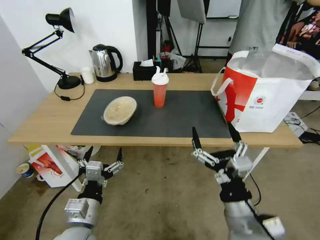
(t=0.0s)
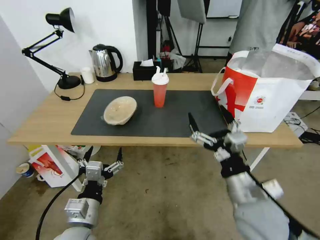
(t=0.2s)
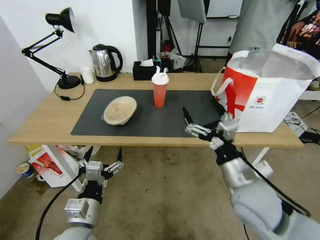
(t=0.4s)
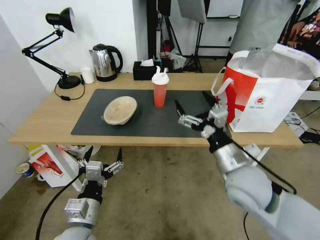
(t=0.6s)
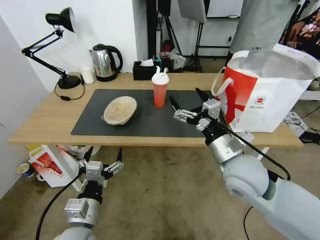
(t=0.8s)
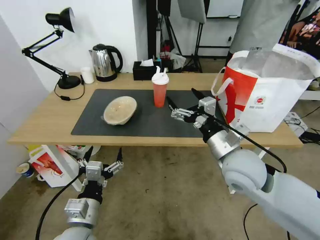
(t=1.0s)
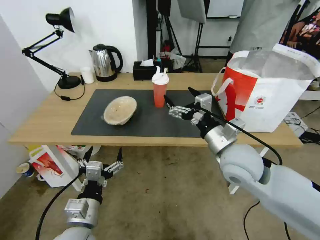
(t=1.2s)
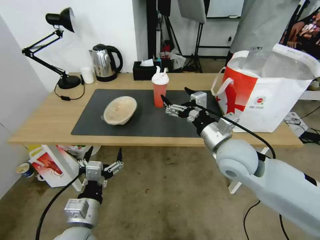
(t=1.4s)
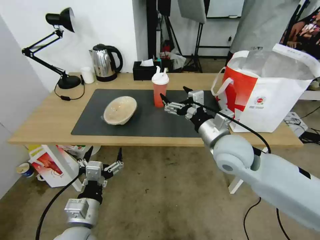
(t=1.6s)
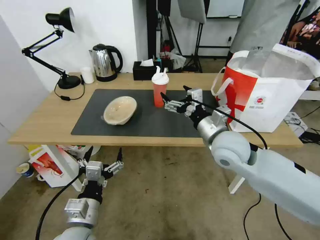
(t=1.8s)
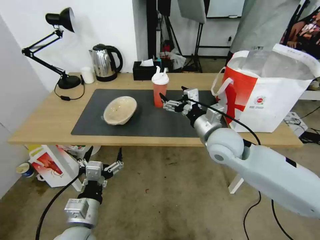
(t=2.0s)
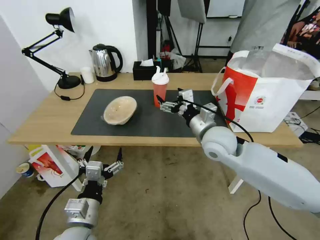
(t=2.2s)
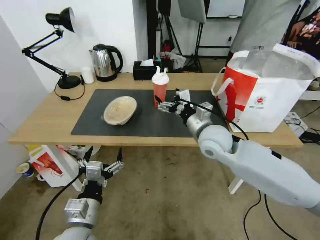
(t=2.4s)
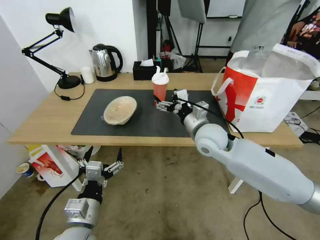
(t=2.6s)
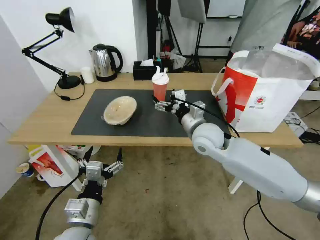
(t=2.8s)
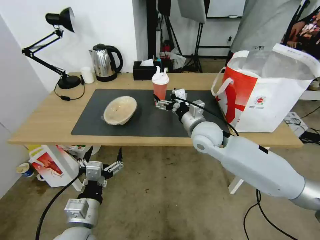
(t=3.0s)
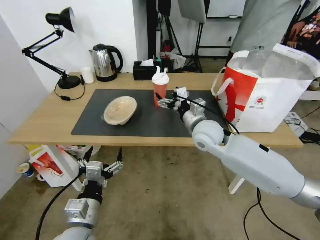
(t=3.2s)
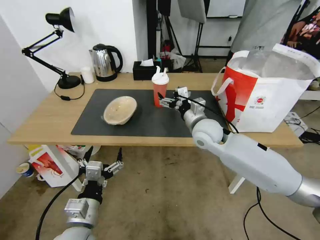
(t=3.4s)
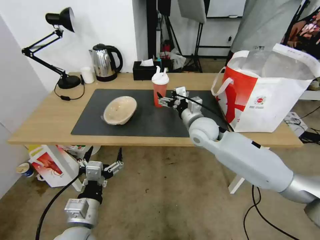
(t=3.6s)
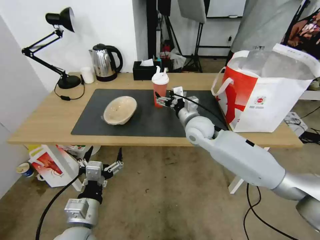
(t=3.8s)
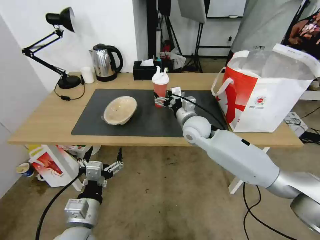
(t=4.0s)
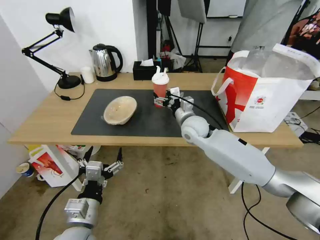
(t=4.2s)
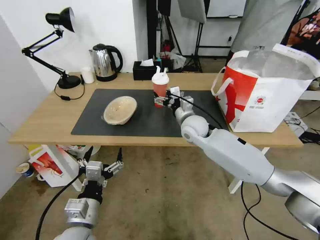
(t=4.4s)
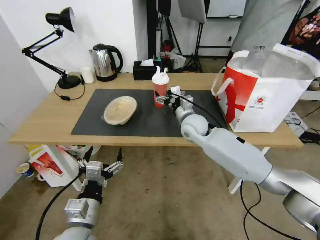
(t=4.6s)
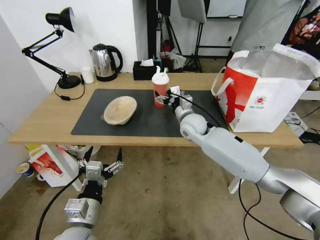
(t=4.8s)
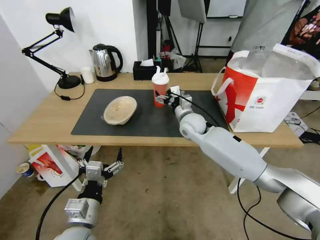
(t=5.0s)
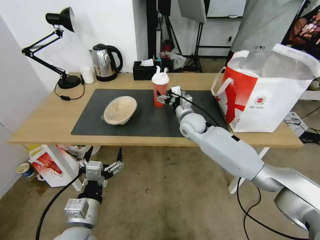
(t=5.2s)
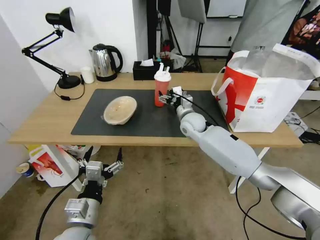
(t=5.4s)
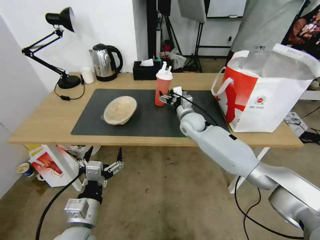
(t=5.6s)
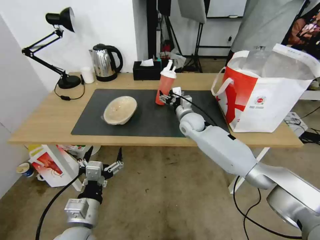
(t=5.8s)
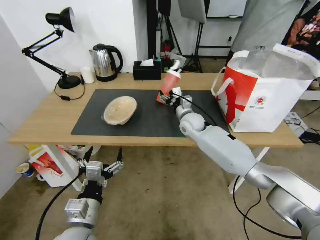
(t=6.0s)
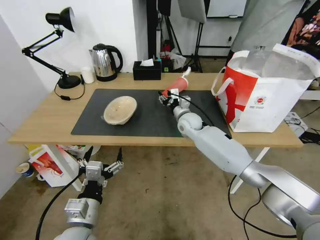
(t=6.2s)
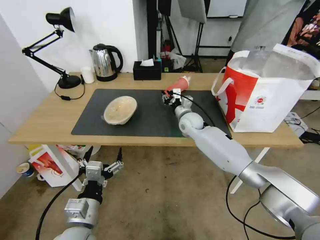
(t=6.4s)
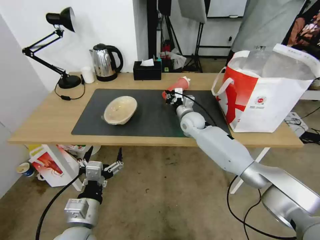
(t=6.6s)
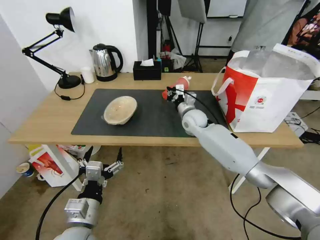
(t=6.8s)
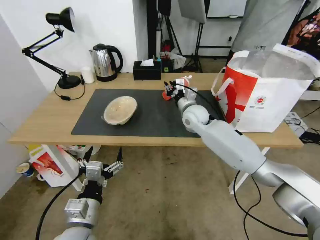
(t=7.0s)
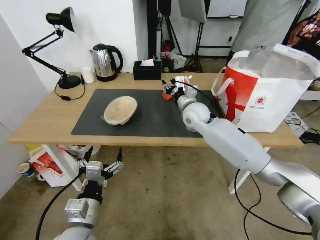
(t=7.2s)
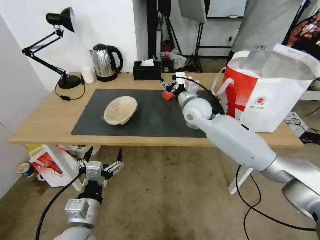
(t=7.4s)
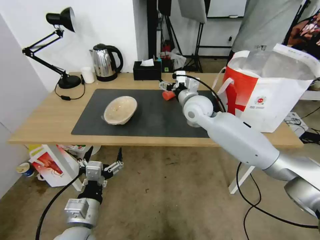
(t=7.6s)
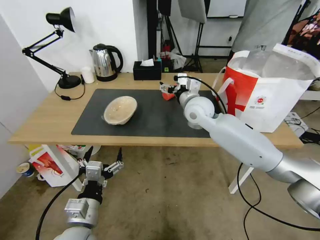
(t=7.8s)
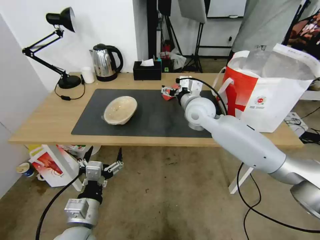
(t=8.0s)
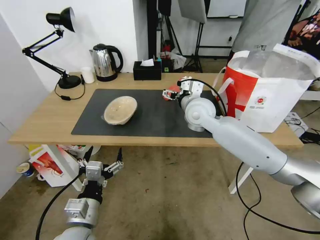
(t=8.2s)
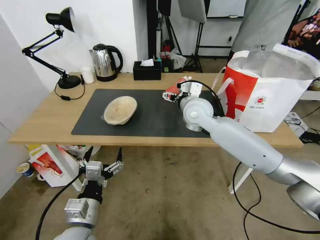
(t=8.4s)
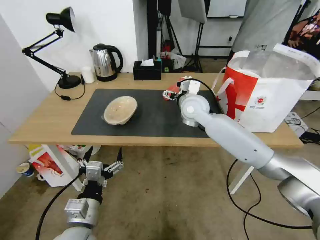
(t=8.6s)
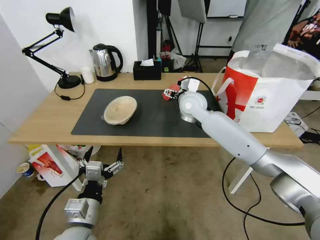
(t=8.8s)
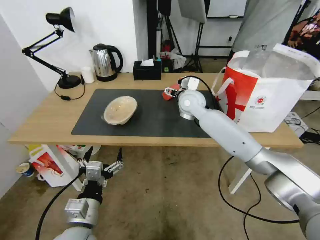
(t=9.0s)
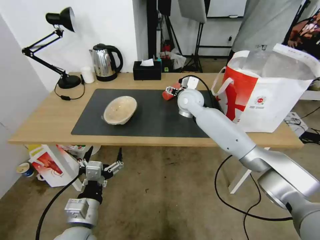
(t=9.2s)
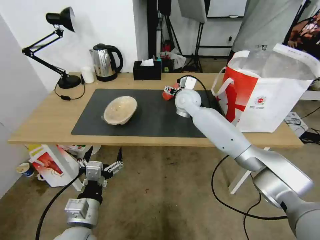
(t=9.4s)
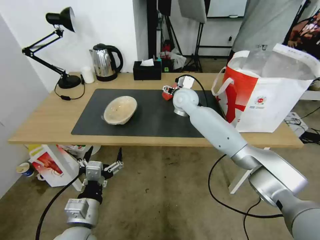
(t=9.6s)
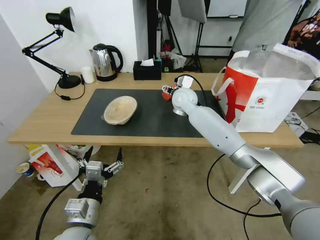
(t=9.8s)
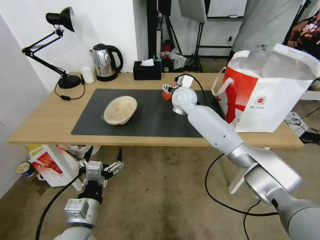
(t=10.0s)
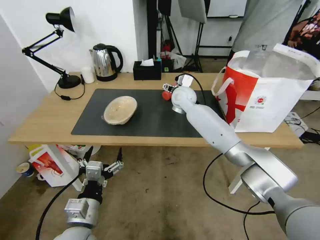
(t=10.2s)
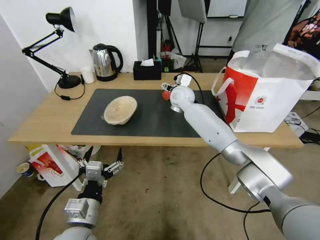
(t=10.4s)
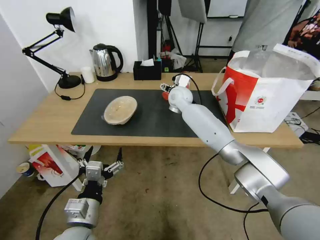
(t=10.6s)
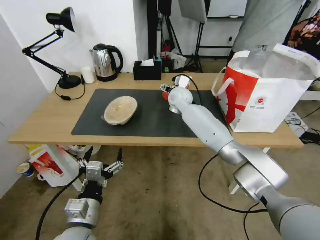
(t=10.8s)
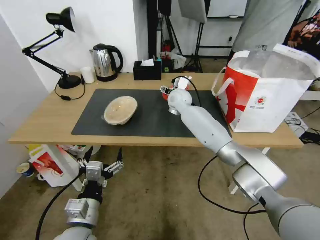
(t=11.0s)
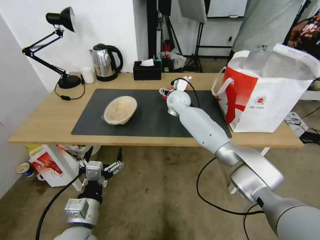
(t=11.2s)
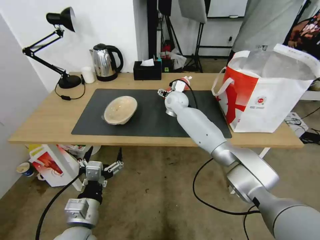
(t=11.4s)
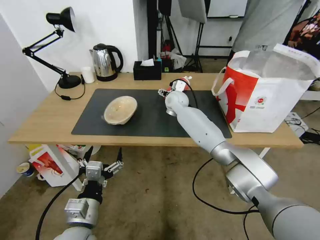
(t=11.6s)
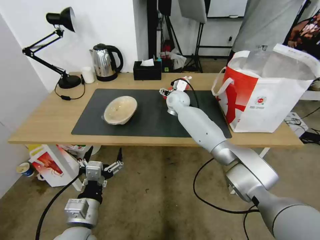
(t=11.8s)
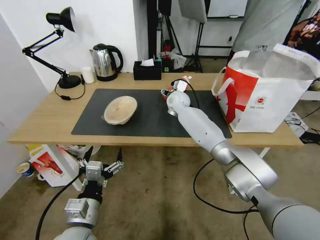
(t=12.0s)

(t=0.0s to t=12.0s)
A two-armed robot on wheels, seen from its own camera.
Task of the whole recording: Pick up the trash from the table and place it into the takeout bag.
t=0.0s - t=1.6s: The right gripper goes approximately 20 cm forward and upward.
t=1.6s - t=3.0s: The right gripper travels forward by about 10 cm.
t=3.0s - t=4.4s: The right gripper goes some 5 cm forward.
t=4.4s - t=6.0s: The right gripper is displaced forward by roughly 5 cm.
t=6.0s - t=7.6s: The right gripper shifts about 10 cm upward, and closes, then opens again.
t=9.0s - t=10.4s: The right gripper heads forward, covering about 5 cm.
t=10.4s - t=12.0s: There are only small adjustments of the grippers.

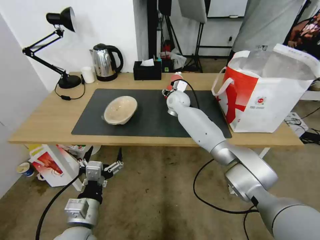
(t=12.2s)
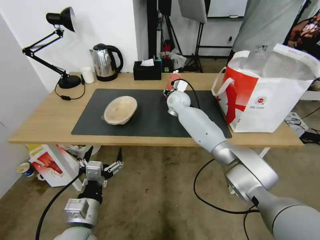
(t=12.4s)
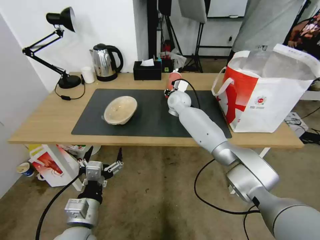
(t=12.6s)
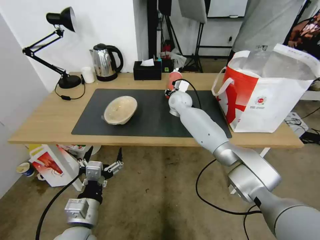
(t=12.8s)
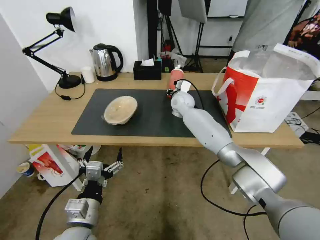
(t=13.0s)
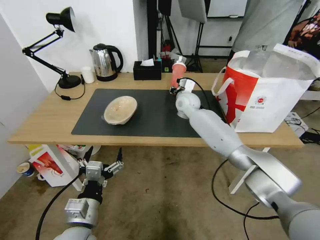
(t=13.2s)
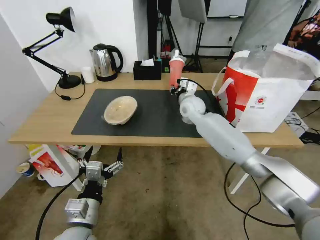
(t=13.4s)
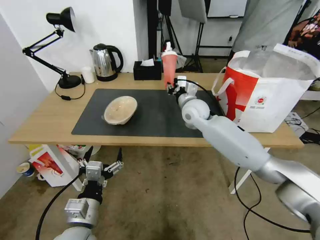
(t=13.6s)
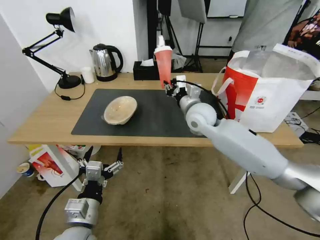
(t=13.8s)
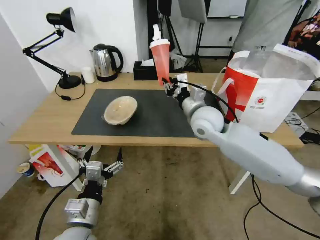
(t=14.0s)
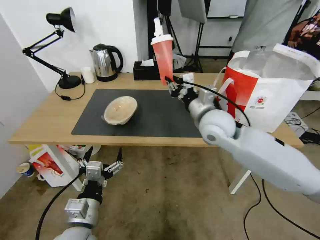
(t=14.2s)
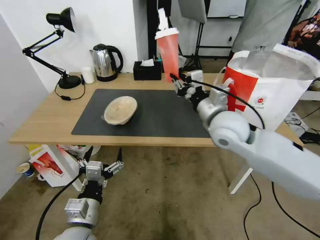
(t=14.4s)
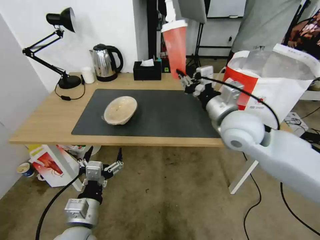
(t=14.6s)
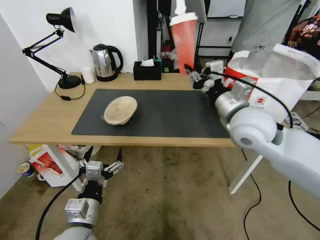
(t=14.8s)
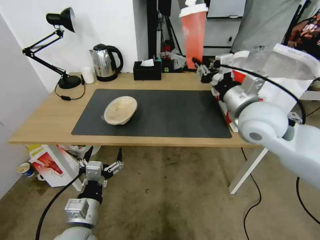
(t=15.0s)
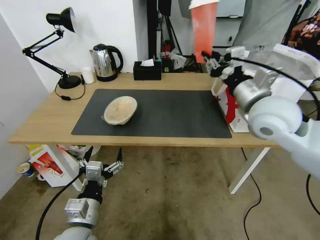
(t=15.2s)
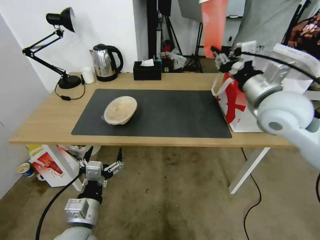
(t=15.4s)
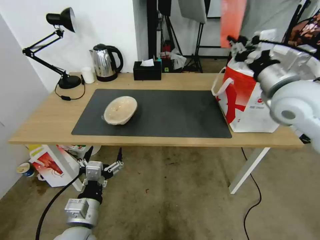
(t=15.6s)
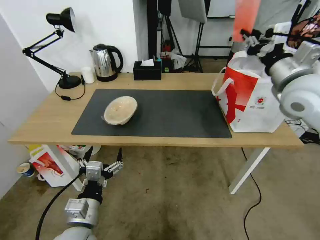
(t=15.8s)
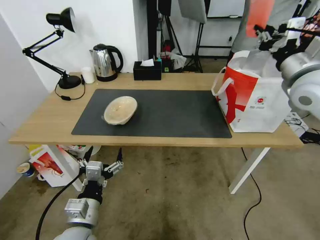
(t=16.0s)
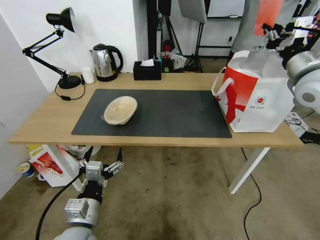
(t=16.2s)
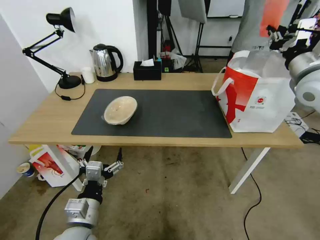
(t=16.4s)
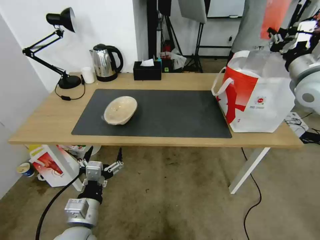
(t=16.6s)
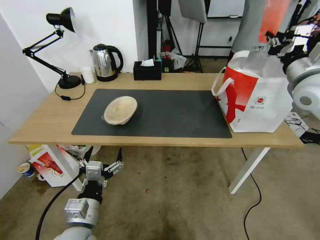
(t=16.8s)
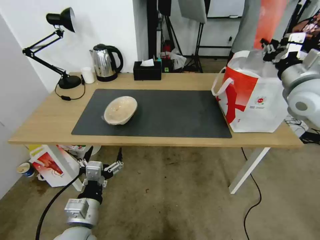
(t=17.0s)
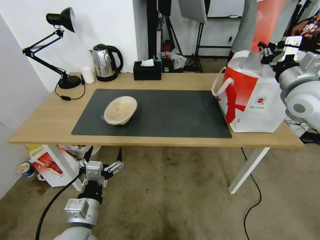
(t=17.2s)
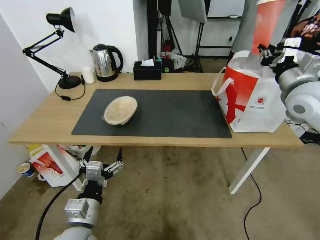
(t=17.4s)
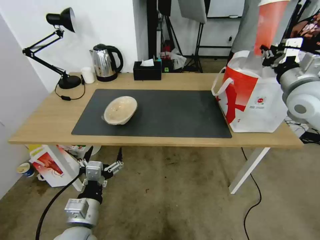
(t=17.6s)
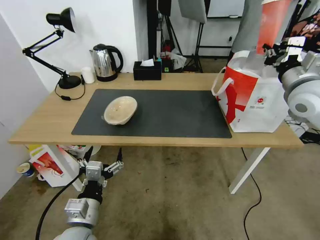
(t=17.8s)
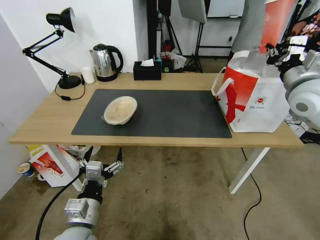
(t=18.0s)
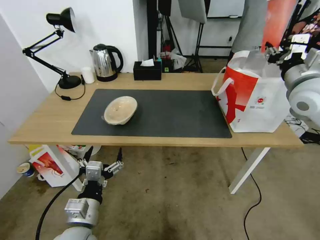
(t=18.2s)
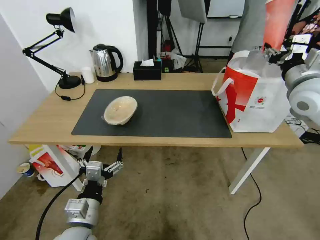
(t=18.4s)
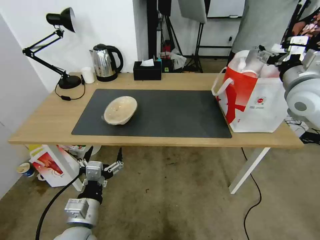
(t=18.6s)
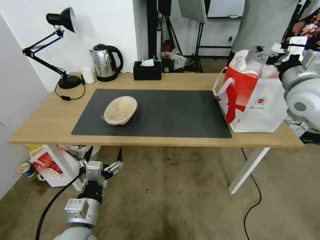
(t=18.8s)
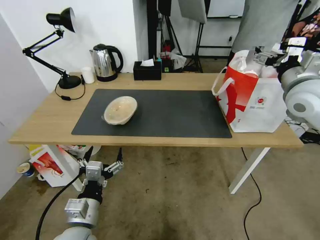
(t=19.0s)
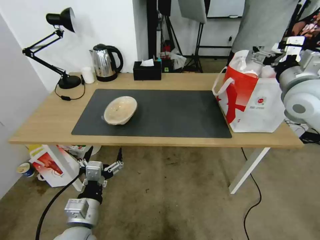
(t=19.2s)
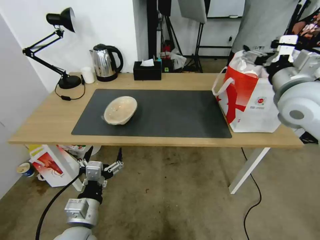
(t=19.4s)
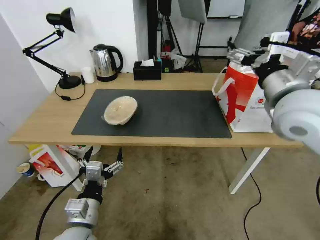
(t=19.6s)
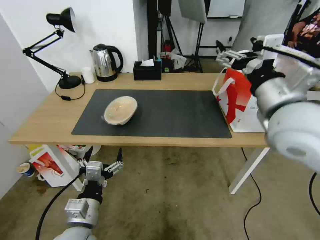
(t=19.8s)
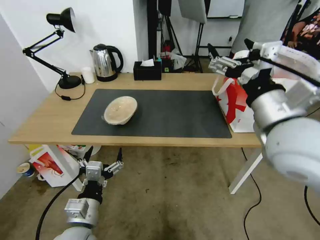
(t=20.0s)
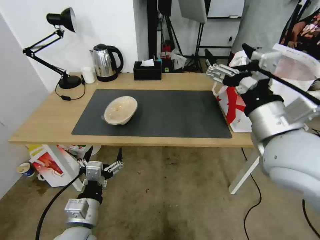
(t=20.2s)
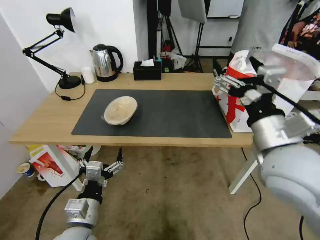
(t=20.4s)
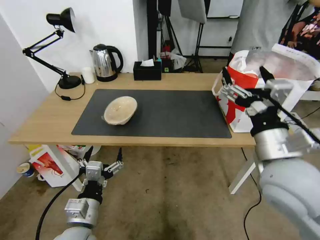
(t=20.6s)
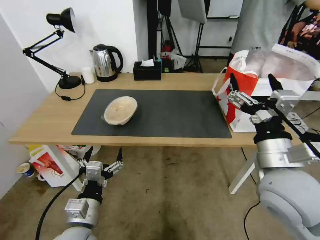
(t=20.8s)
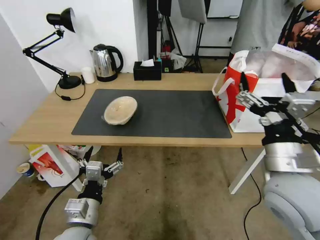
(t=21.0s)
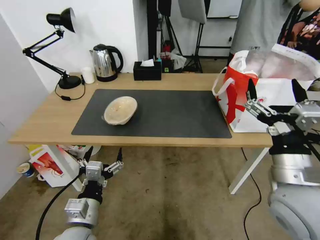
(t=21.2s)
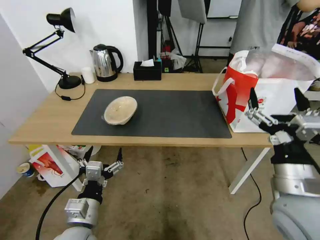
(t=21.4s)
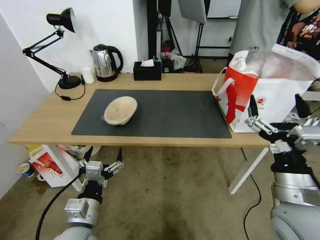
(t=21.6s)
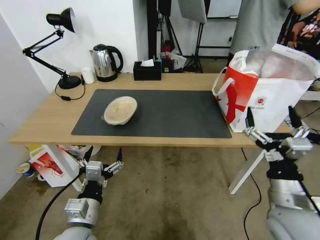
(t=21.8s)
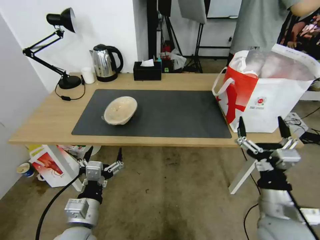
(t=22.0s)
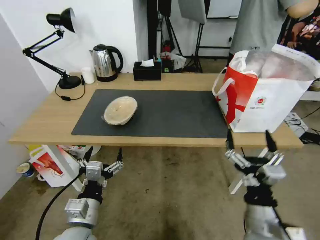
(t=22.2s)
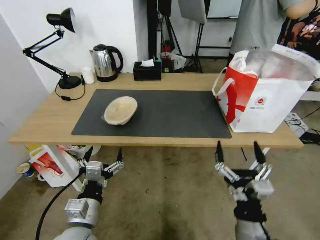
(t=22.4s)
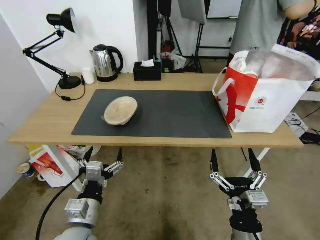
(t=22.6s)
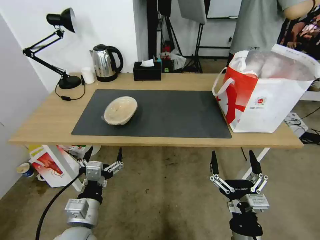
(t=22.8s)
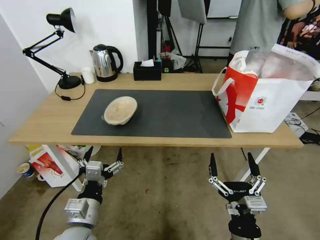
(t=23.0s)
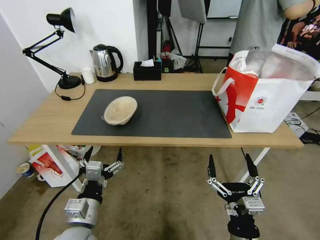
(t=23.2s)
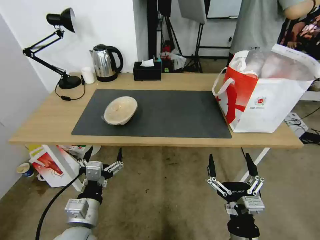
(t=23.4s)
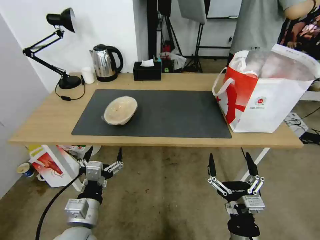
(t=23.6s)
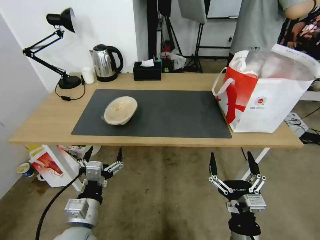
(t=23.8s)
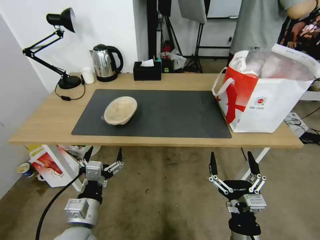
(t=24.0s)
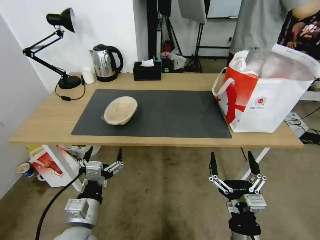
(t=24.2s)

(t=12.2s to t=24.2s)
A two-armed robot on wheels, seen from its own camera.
Task of the whole recording: Pick up the trash from the table and place it into the takeout bag.
t=12.2s - t=13.8s: The right gripper moves backward, approximately 15 cm.
t=13.8s - t=15.2s: The right gripper is displaced backward, to the right and upward by approximately 20 cm.
t=15.2s - t=16.6s: The right gripper goes some 15 cm to the right and forward.
t=16.6s - t=18.2s: There are only small adjustments of the grippers.
t=18.2s - t=19.8s: The right gripper heads to the left and backward, covering some 20 cm, and opens.
t=19.8s - t=21.2s: The right gripper shifts some 15 cm downward and backward.
t=21.2s - t=22.6s: The right gripper moves downward, backward and to the left, roughly 20 cm.
t=22.6s - t=24.2s: The grippers make only small movements.
